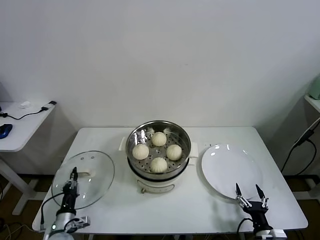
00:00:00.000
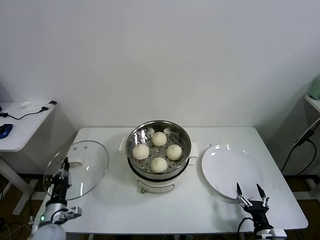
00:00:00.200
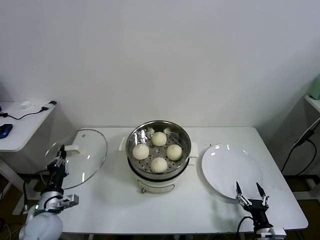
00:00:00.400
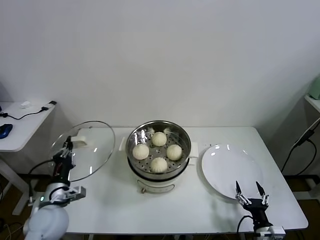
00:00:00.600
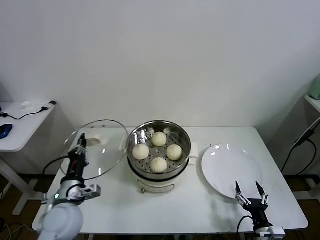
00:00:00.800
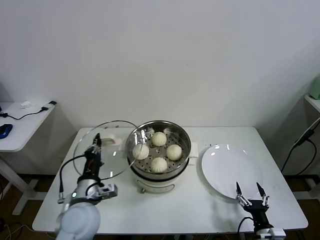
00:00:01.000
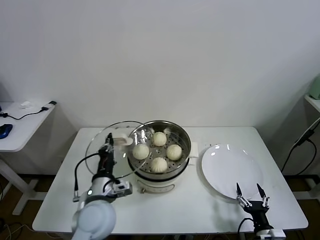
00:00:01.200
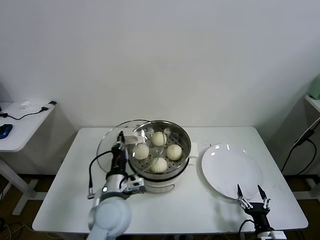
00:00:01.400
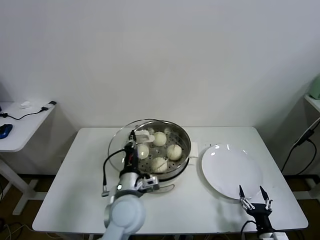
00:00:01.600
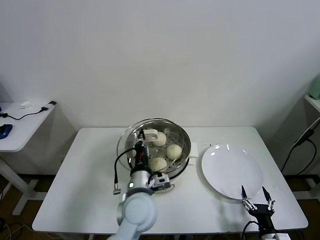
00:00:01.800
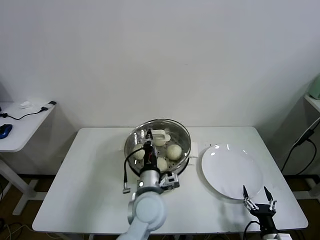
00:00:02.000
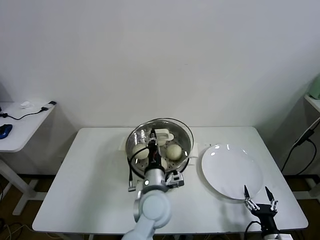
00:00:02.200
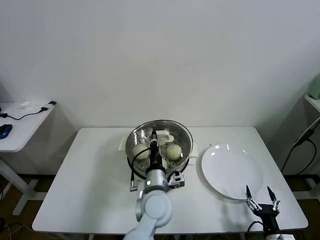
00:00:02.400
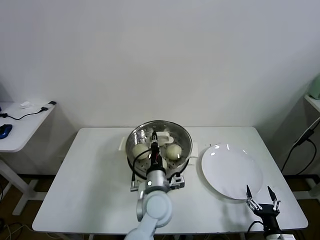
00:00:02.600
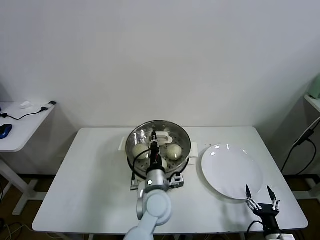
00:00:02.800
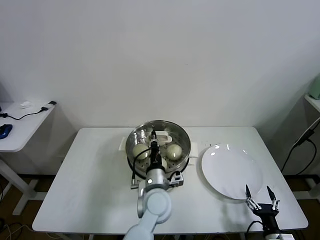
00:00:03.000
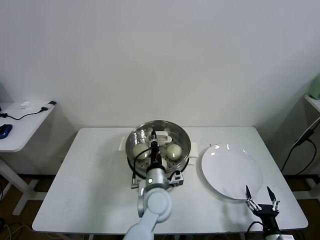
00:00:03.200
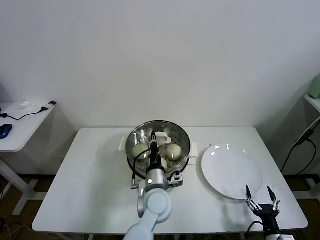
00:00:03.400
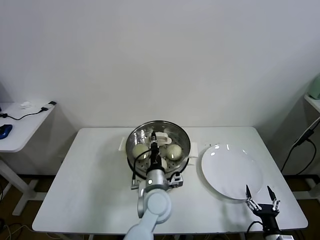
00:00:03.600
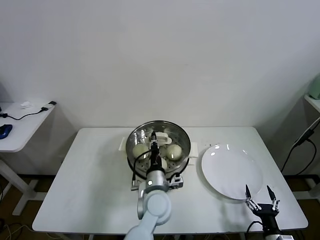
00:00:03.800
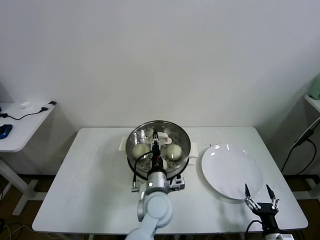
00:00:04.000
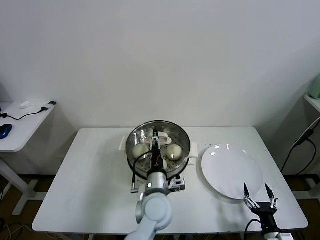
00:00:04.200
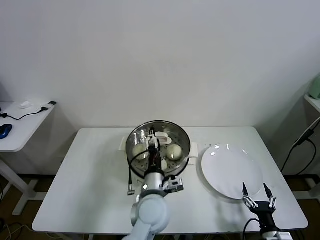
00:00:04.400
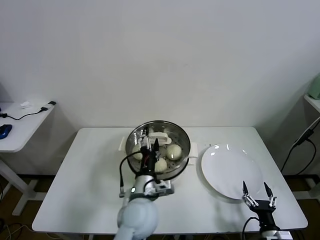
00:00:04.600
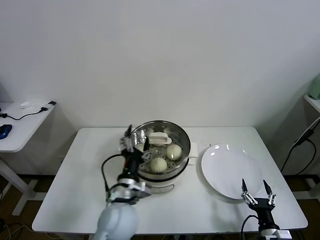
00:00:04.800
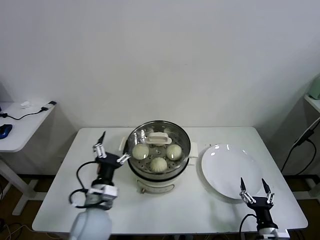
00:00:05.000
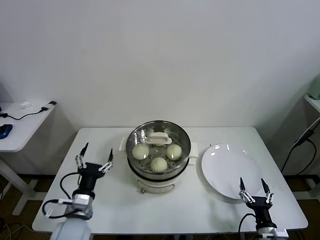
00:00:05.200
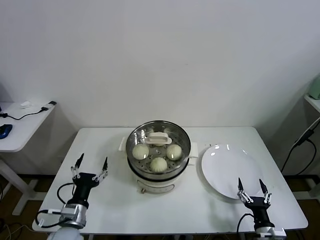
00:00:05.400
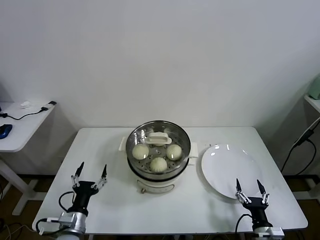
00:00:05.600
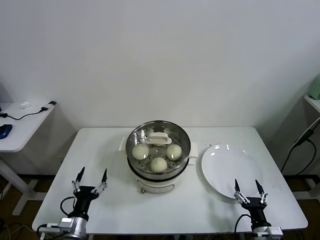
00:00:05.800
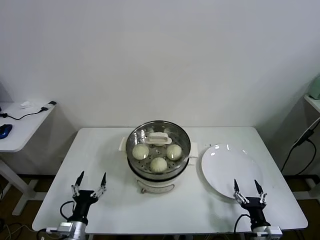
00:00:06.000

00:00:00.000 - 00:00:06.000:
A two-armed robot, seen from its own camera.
Task of the whole recording: take steamed baozi put them in steamer.
Step, 00:00:00.000 - 00:00:04.200: Place the pot lid on the steamer with left gripper.
00:00:00.000 - 00:00:01.600: The left gripper travels to the right and upward by roughly 30 cm.
00:00:01.600 - 00:00:03.000: The left gripper heads to the right, covering approximately 10 cm.
00:00:03.000 - 00:00:04.400: The left gripper opens its fingers.
00:00:04.400 - 00:00:06.000: The left gripper moves to the left and downward, some 30 cm.
